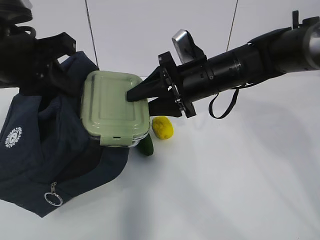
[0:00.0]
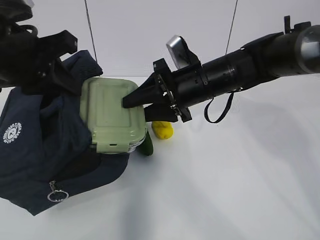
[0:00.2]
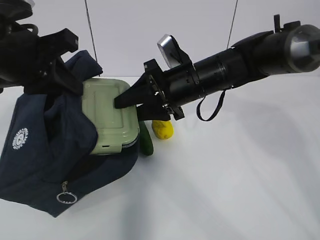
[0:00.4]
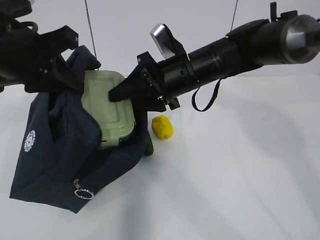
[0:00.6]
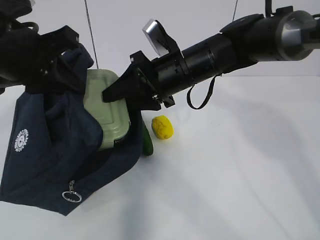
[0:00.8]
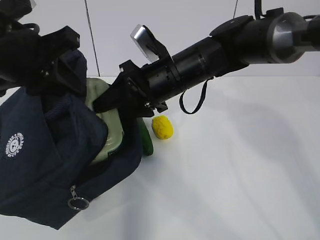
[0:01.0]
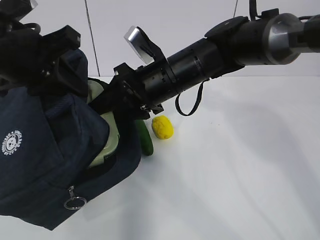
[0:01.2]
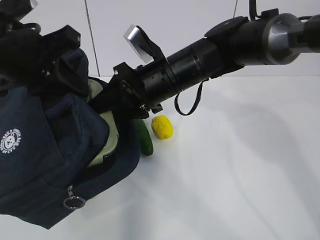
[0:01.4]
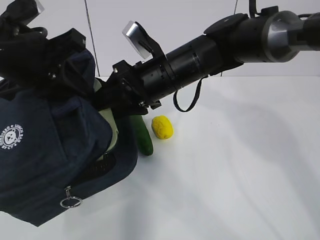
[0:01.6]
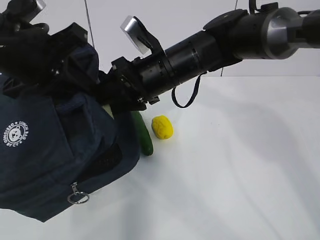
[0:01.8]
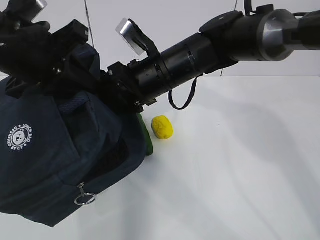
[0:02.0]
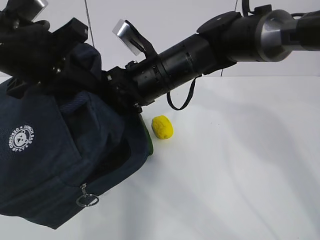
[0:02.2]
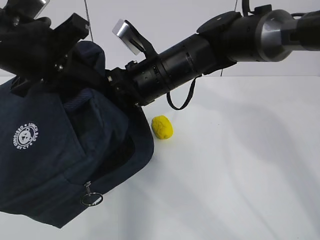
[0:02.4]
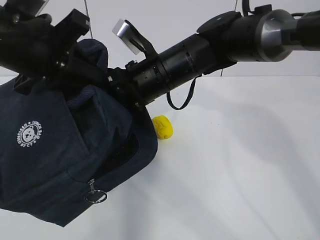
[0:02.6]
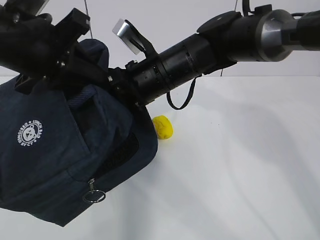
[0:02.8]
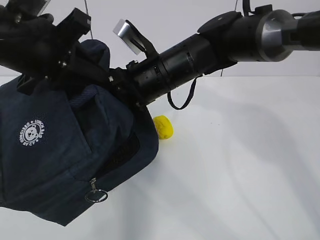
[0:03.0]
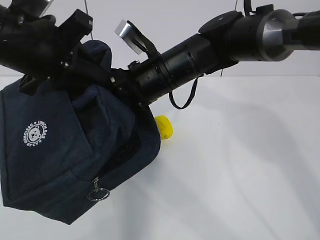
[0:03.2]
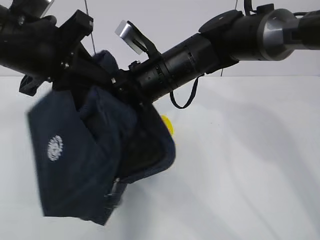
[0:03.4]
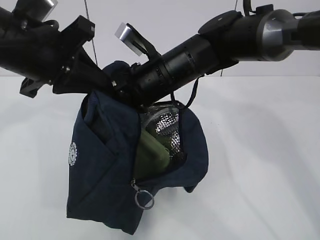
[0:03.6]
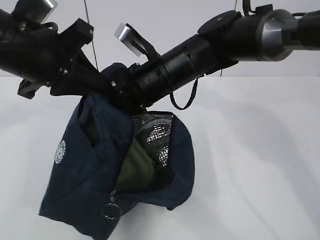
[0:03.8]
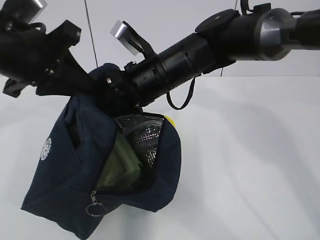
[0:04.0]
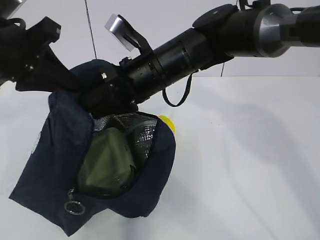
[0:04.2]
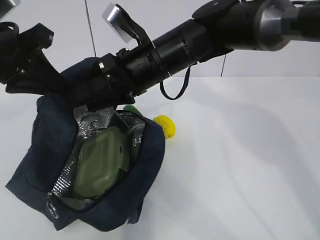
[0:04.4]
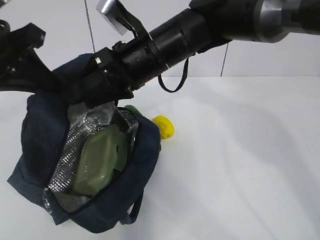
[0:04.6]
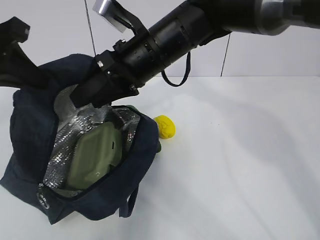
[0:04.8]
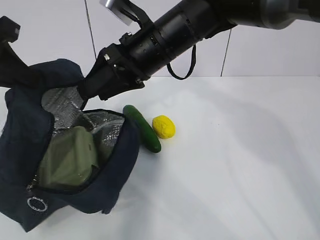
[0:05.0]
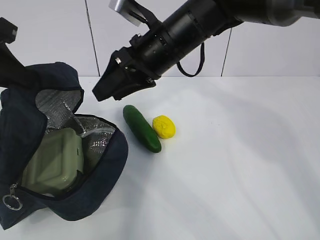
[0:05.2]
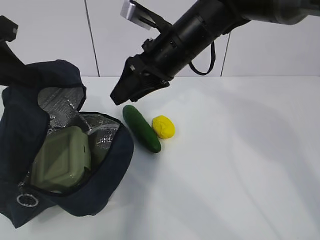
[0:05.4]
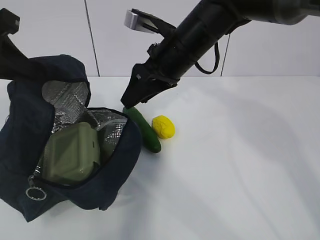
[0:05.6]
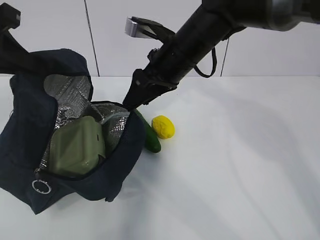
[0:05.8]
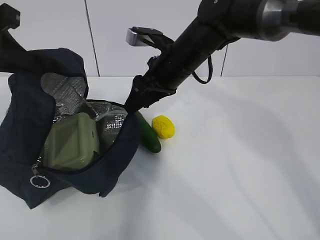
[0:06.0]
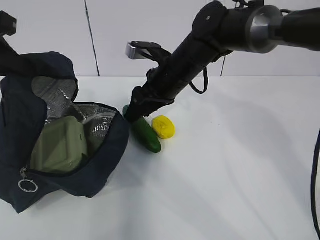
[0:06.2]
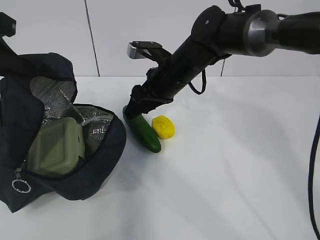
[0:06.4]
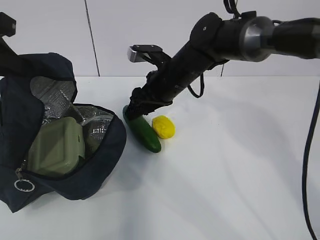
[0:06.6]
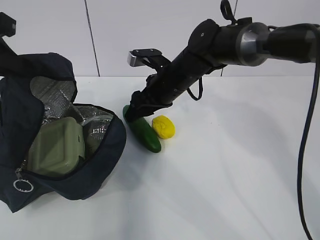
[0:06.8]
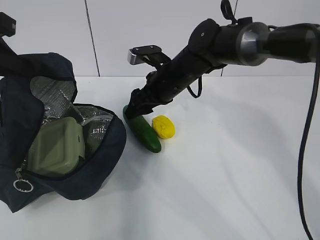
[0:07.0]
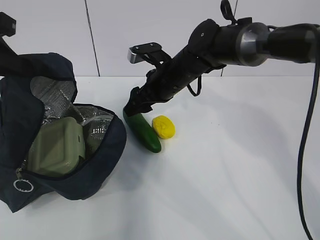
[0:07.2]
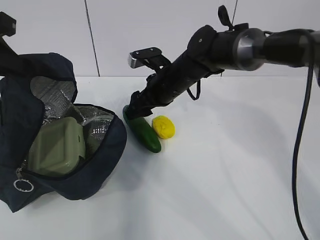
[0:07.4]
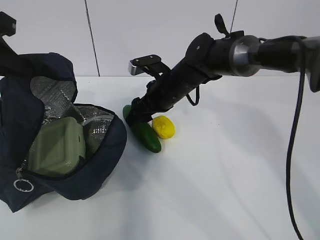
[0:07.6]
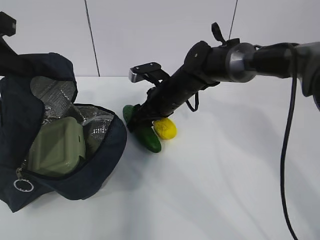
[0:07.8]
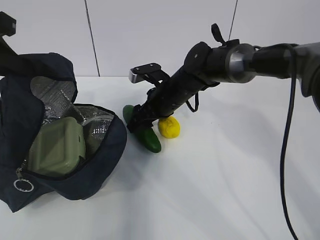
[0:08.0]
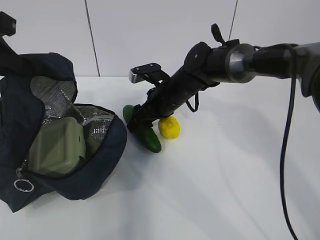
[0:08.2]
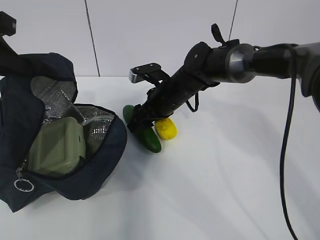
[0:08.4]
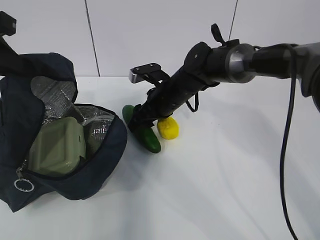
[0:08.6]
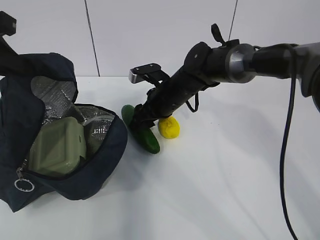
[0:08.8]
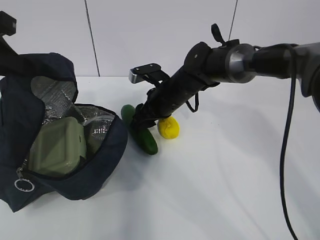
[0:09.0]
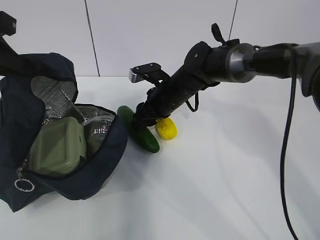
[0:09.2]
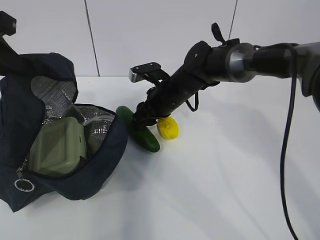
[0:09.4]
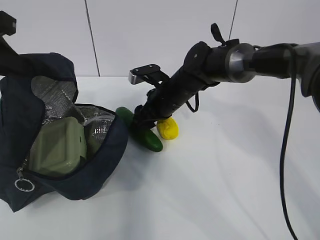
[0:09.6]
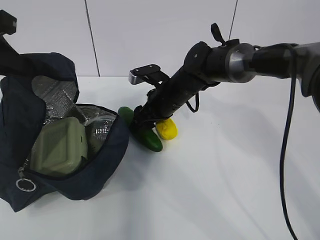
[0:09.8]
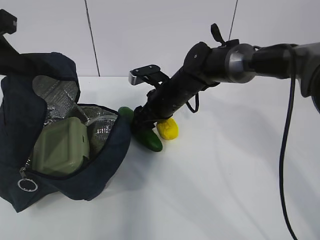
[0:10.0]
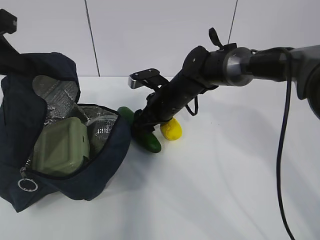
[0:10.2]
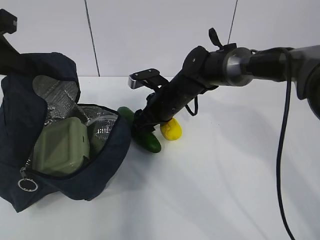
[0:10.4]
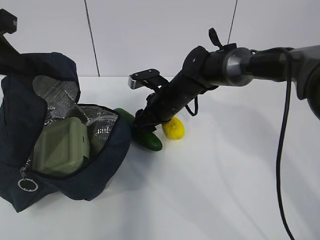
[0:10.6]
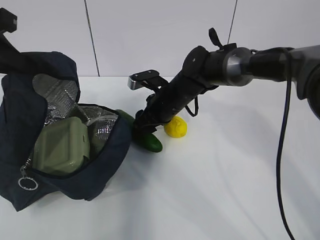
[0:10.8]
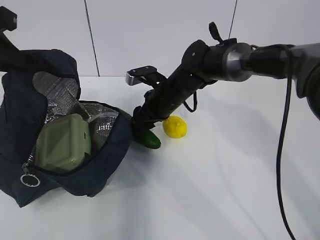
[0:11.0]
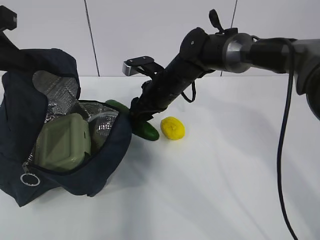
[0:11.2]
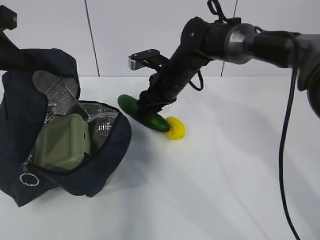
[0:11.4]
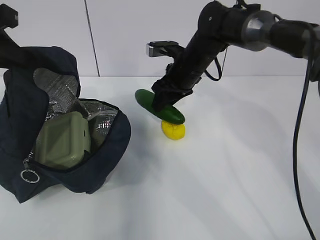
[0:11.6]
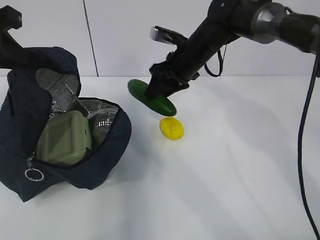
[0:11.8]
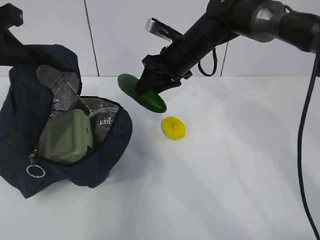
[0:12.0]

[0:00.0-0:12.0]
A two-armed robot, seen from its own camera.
Step, 0:00.0 to 0:04.6: Grab the cucumber with your right hand.
Step, 0:04.8 to 0:08.8: Place it into the bag with your right hand.
0:00.0 to 0:01.6: The right gripper goes about 5 cm to the left.
0:01.6 to 0:03.0: The grippers make only small movements.
0:04.4 to 0:06.0: The right gripper moves approximately 5 cm.
0:06.0 to 0:07.6: The right gripper travels downward by approximately 10 cm.
0:07.6 to 0:09.0: There are only small adjustments of the grippers.
0:09.0 to 0:10.4: Both grippers stay about where they are.
0:10.4 to 0:12.0: The right gripper is displaced upward by roughly 10 cm.

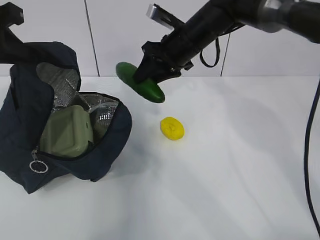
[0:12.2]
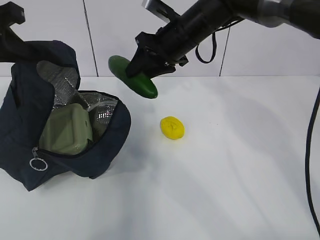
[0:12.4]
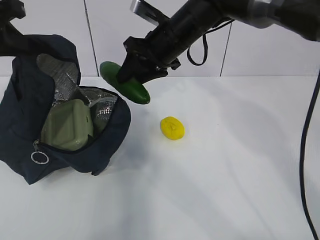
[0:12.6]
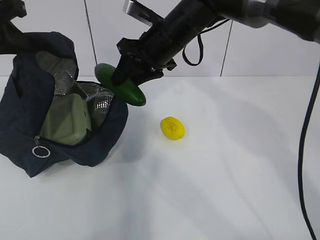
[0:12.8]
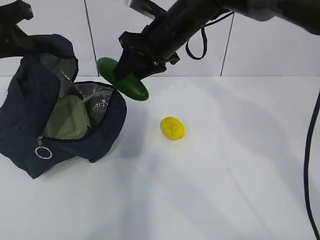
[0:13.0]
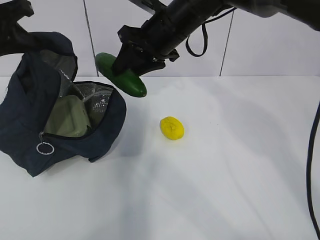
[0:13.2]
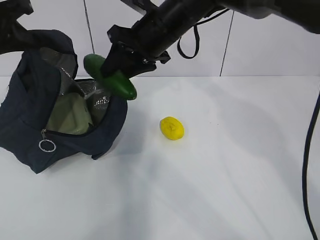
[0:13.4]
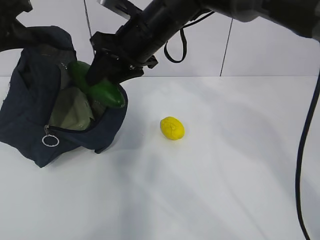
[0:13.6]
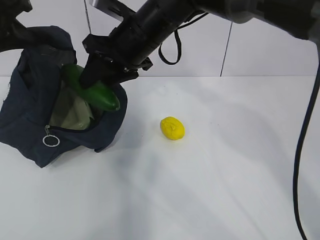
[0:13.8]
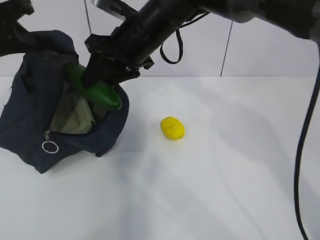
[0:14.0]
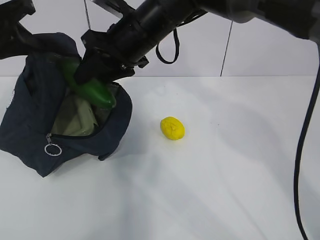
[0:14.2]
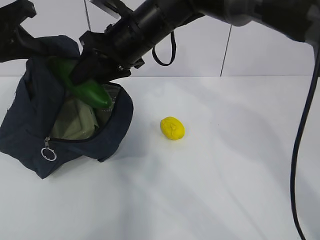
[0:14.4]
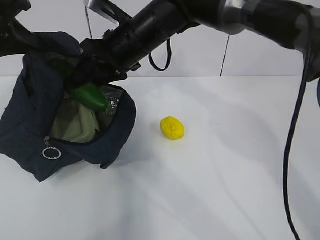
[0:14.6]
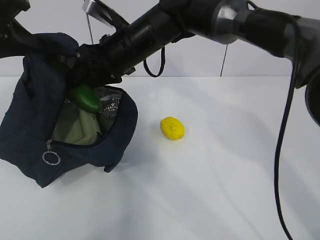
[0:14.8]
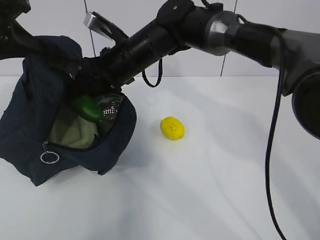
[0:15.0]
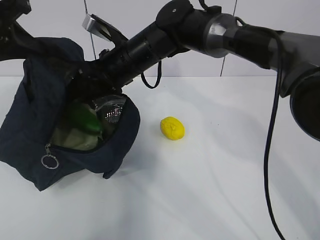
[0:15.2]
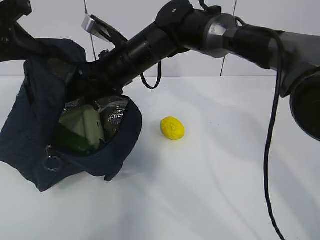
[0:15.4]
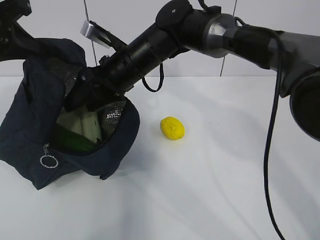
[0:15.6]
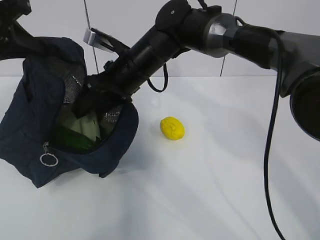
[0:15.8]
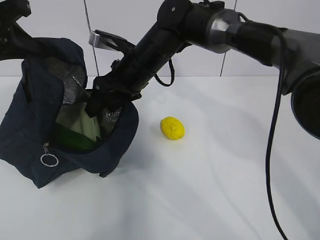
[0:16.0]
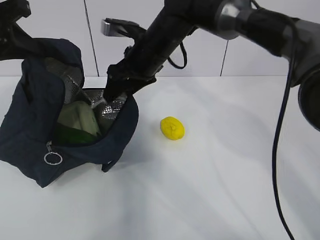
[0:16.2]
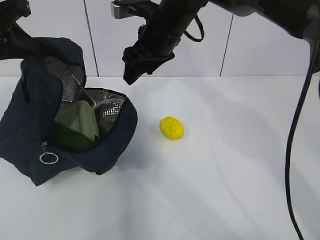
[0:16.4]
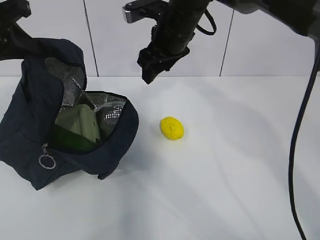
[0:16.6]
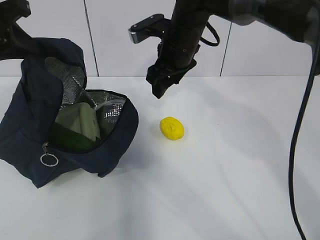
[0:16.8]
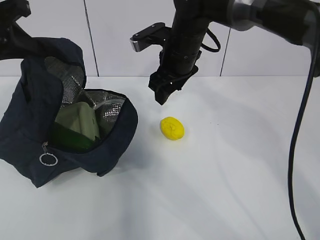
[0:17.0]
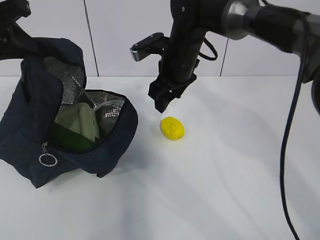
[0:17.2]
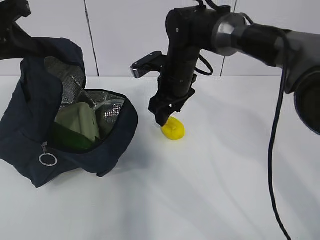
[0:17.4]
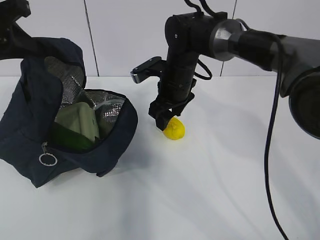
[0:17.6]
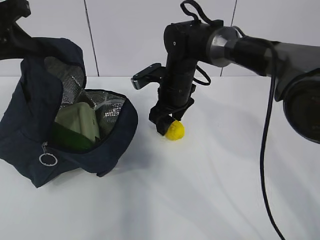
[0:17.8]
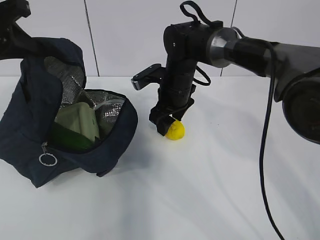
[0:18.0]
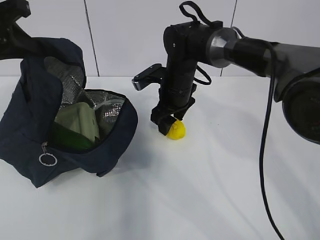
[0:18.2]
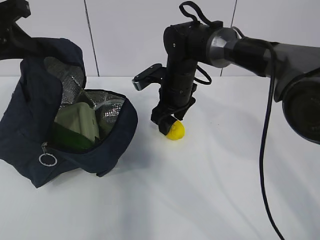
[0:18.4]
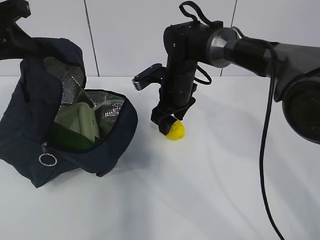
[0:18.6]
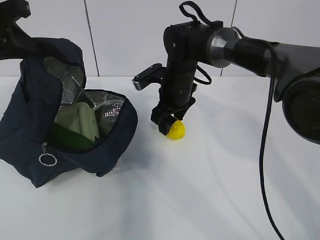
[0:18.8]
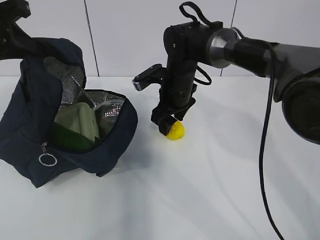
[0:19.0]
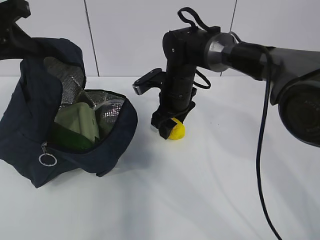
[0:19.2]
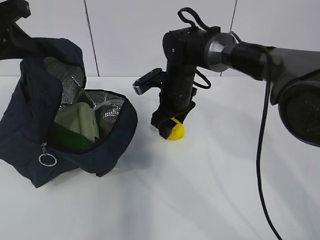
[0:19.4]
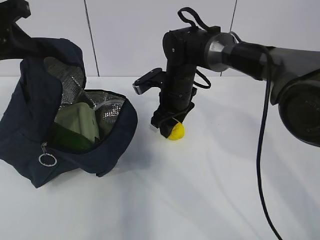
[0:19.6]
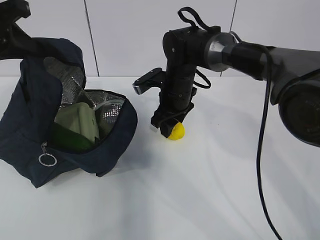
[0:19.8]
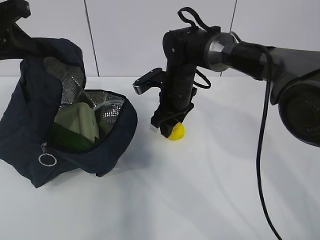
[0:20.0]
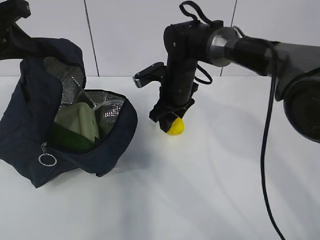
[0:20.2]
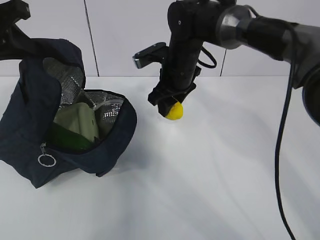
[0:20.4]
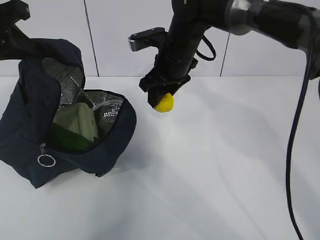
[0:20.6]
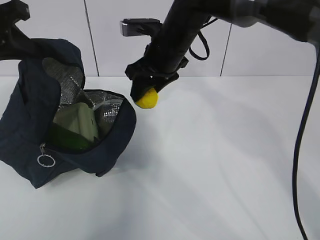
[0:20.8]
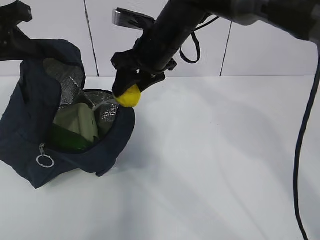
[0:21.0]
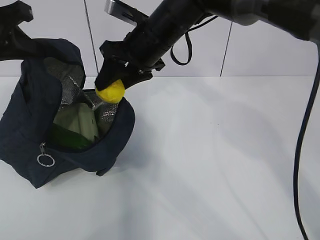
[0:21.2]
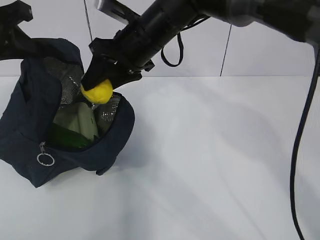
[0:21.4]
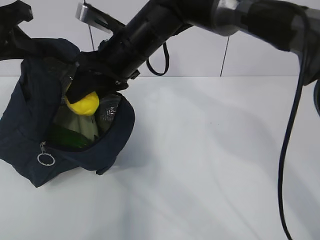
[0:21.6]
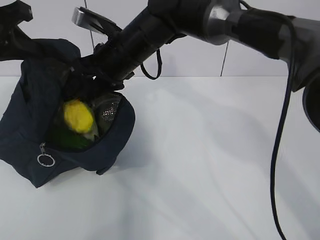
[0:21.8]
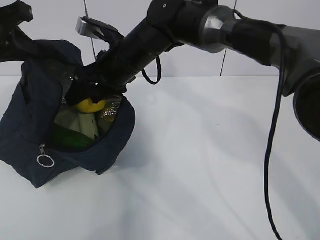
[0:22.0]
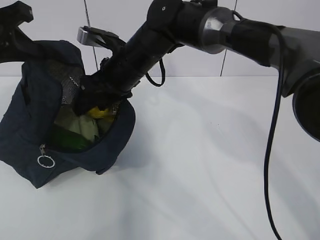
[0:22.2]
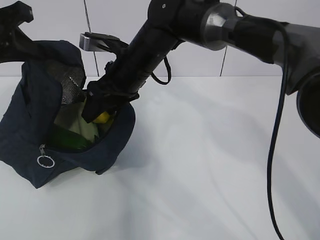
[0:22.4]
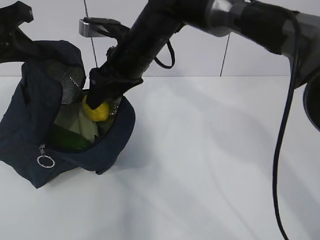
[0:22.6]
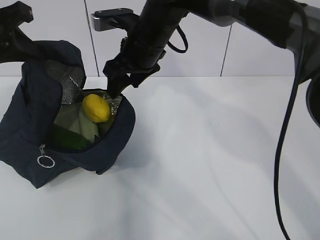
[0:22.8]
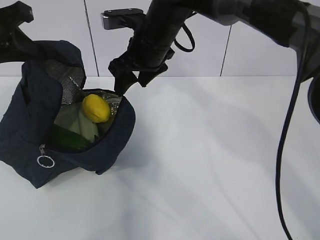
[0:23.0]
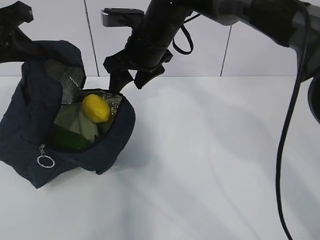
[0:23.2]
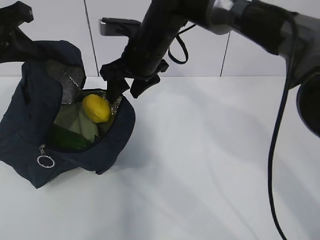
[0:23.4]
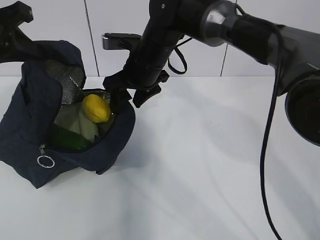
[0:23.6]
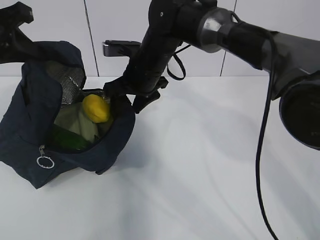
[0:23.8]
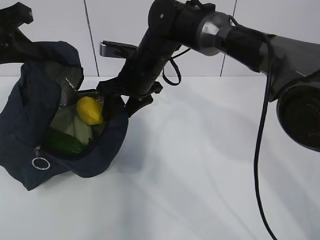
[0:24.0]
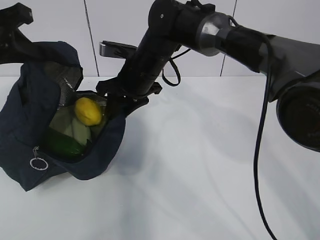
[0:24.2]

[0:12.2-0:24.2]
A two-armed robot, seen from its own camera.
Step, 0:12.4 to 0:14.8: Secure the lunch bag with your left hand.
Step, 0:15.2 to 0:16.2: Grab the lunch bag with your right hand.
Step, 0:16.4 to 0:20.4: Move the lunch bag to the right.
0:12.2 to 0:13.8: The right gripper moves to the left and backward, approximately 10 cm.
0:13.8 to 0:15.2: The right gripper goes some 5 cm downward.
0:15.2 to 0:16.6: The right gripper goes roughly 5 cm to the right.
0:16.6 to 0:18.2: The right gripper goes about 10 cm downward.
0:18.2 to 0:19.8: Both grippers stay about where they are.
0:19.8 to 0:21.2: The right gripper shifts roughly 10 cm upward.
0:21.2 to 0:22.6: The grippers make only small movements.
0:22.6 to 0:24.2: The right gripper changes place by about 5 cm, and closes.
